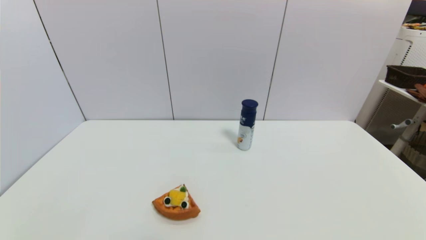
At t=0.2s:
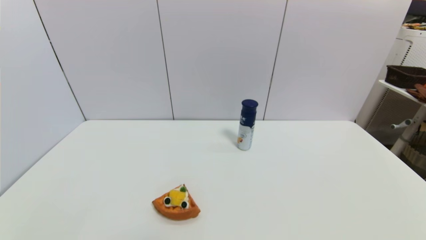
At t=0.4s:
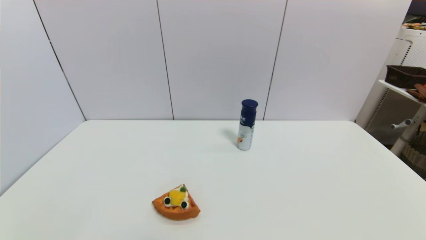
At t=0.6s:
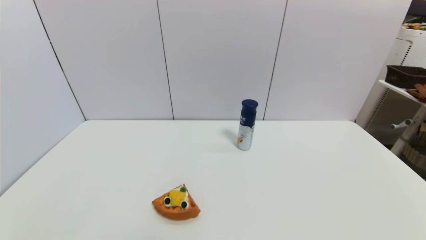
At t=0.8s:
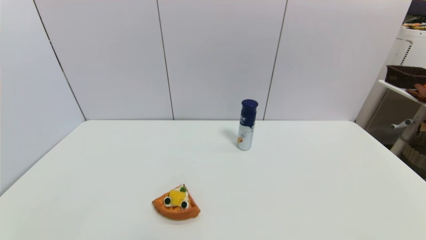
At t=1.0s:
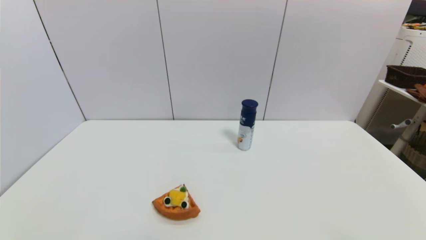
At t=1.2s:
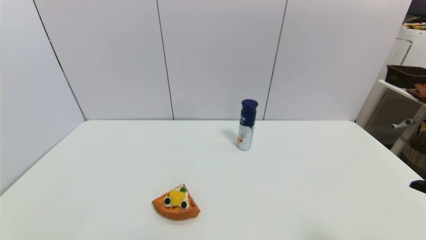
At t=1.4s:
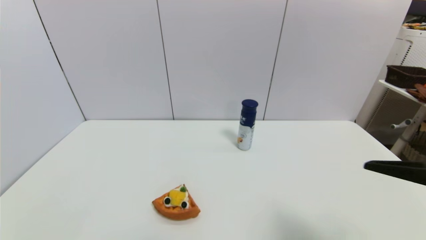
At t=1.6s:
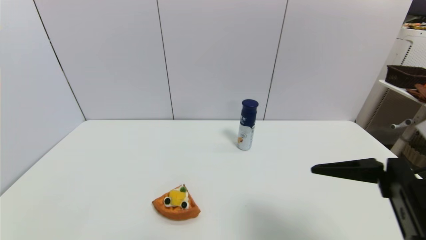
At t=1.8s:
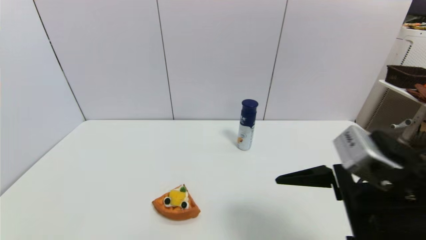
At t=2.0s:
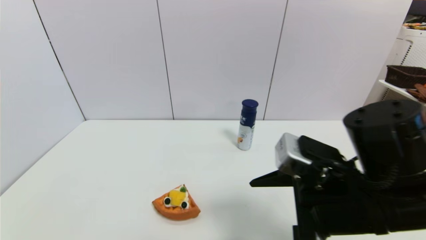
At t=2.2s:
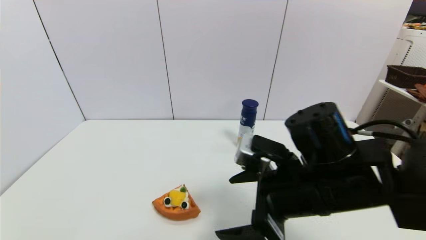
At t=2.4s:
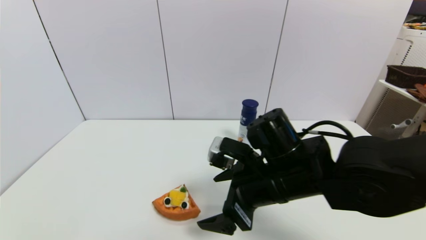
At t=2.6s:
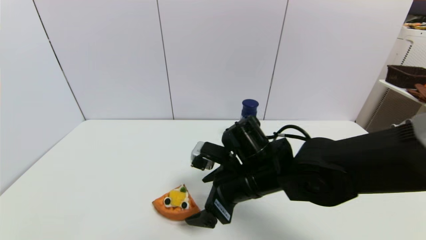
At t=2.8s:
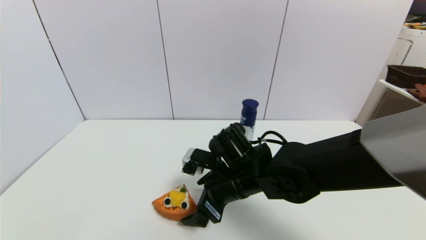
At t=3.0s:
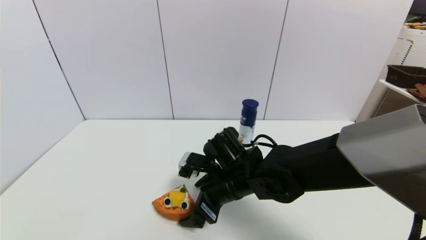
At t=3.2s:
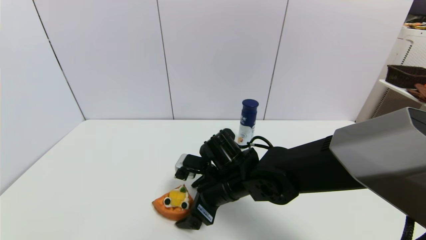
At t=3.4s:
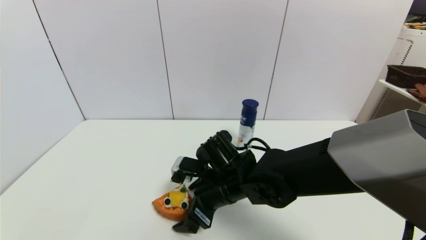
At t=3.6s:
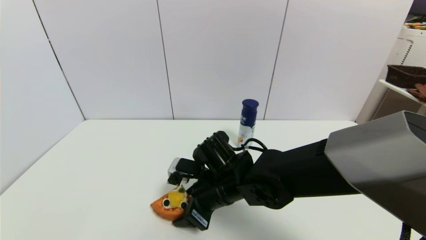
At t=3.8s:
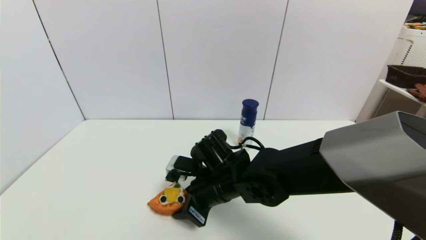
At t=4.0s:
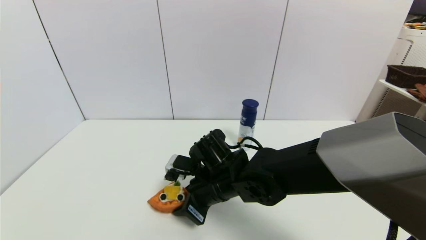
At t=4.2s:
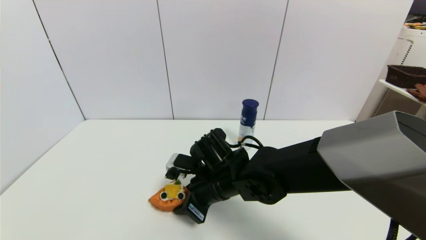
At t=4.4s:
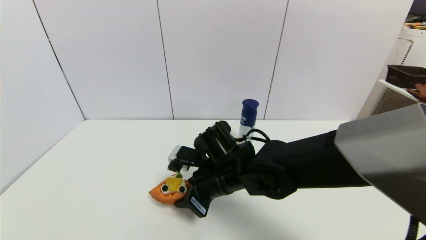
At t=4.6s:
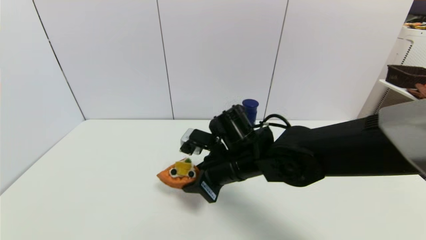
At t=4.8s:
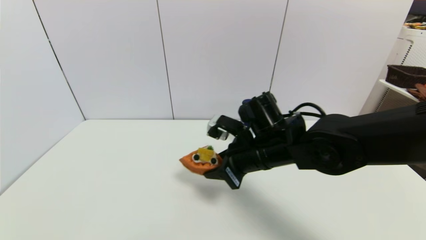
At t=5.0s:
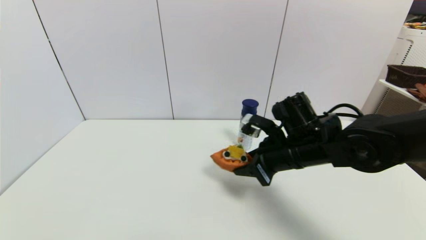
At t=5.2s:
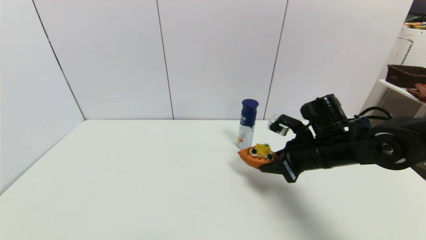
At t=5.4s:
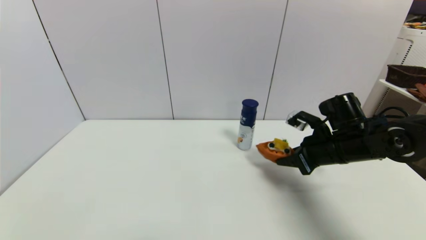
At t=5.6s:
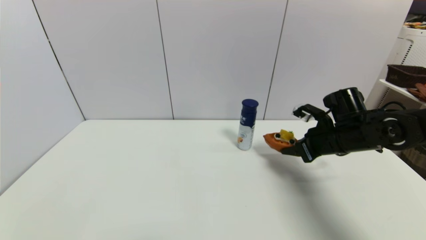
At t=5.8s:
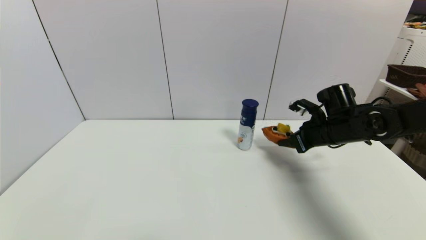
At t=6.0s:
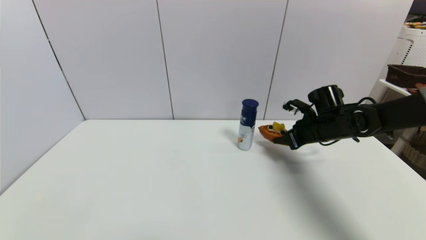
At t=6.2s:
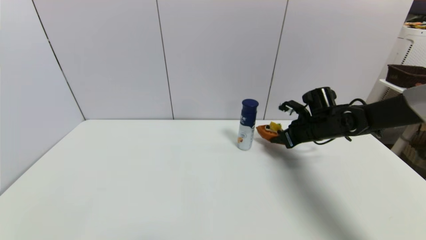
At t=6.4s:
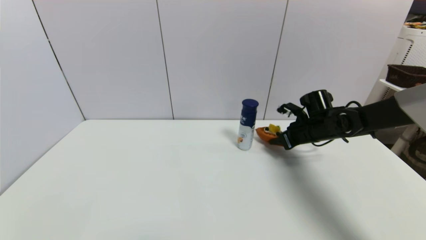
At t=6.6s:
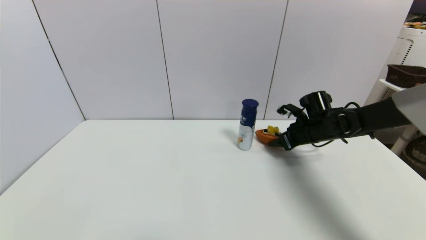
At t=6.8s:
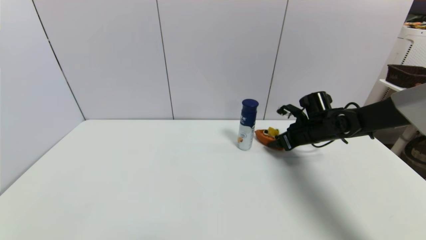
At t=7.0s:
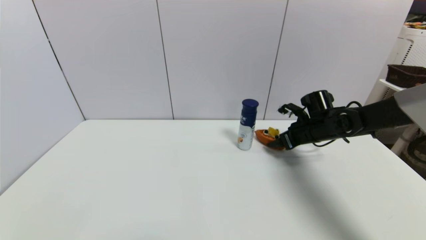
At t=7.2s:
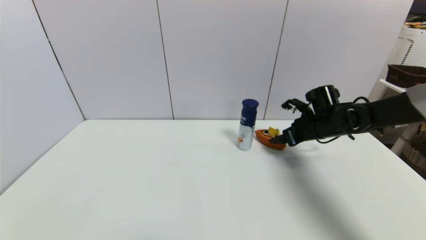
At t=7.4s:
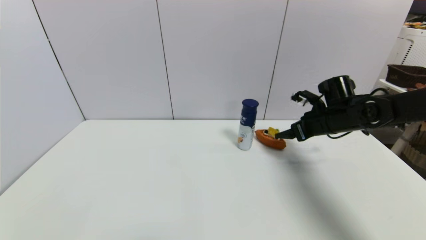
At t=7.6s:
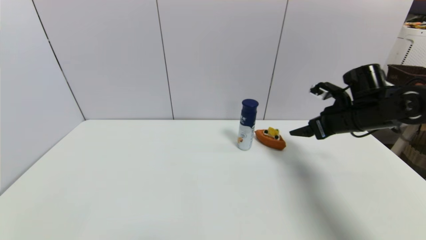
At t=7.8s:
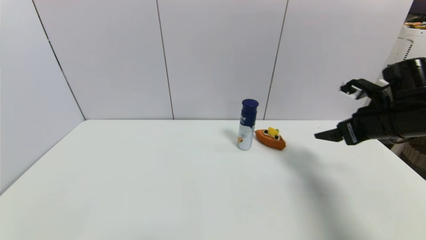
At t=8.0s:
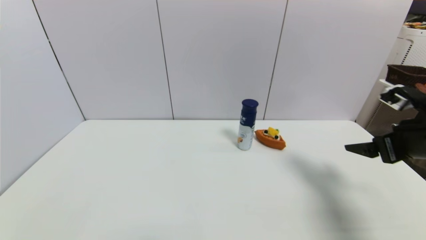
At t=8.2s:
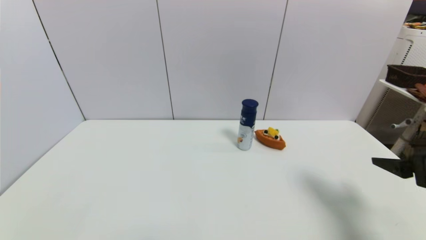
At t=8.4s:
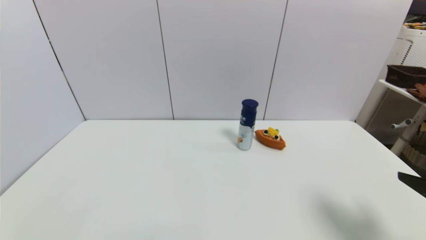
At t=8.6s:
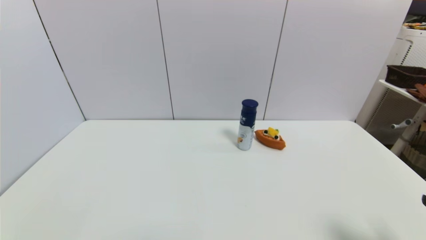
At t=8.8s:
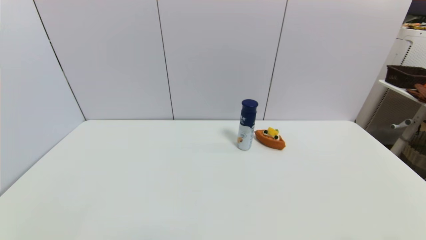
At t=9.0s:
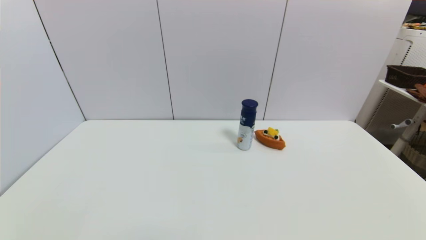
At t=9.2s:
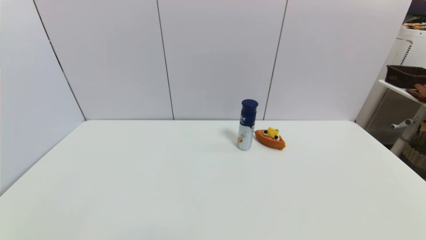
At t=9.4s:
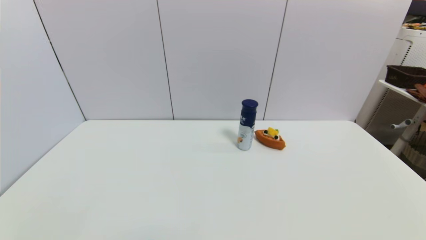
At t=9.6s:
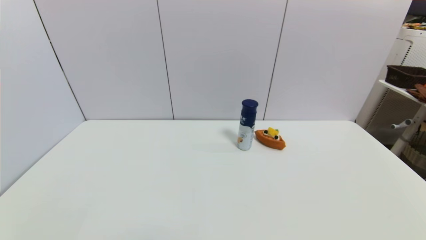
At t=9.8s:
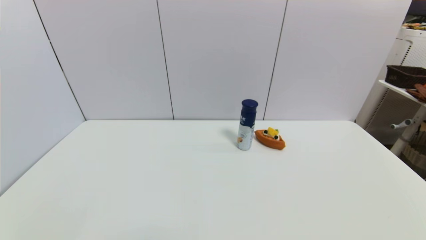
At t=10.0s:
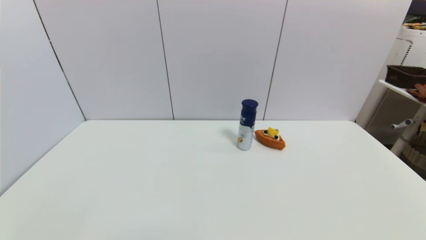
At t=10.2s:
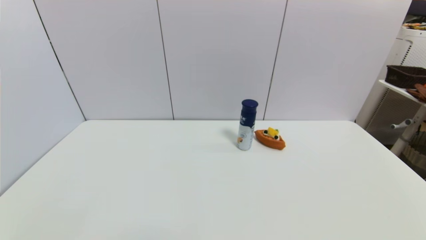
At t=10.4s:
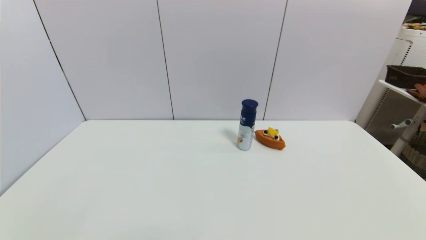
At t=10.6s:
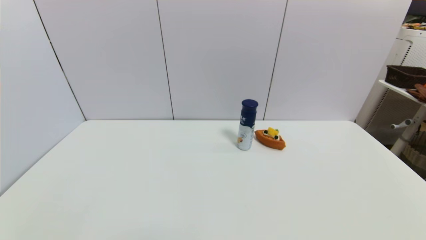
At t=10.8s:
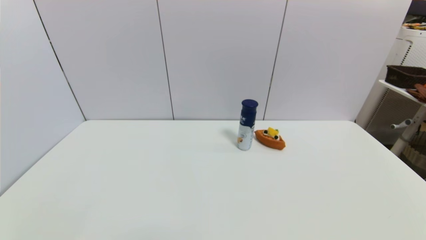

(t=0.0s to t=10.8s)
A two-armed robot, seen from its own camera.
Step, t=1.2s - t=3.8s: Grasp the pizza with right gripper.
Step, t=4.0s - t=6.8s: Place the pizza on the table with right gripper.
t=0.0s - t=1.6s: The right gripper moves upward, forward and to the left, approximately 25 cm.
t=1.6s - t=3.0s: The right gripper is displaced to the left, forward and downward by about 30 cm.
t=3.0s - t=4.6s: The right gripper shifts approximately 5 cm upward, and closes.
t=4.6s - t=6.2s: The right gripper shifts roughly 25 cm to the right and forward.
t=6.2s - t=7.8s: The right gripper travels backward, upward and to the right by about 15 cm, and opens its fingers.
t=7.8s - t=9.2s: The right gripper moves backward, about 30 cm.
